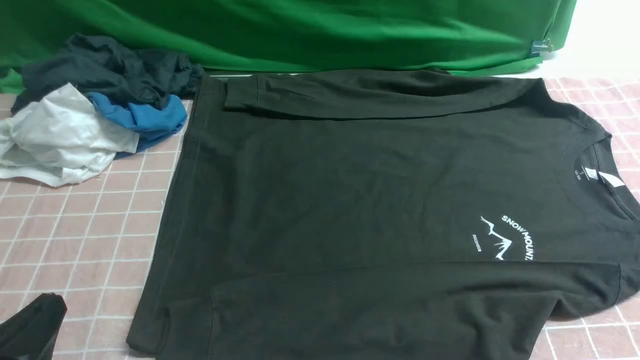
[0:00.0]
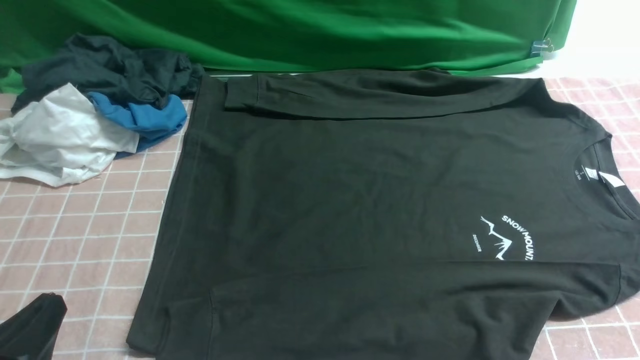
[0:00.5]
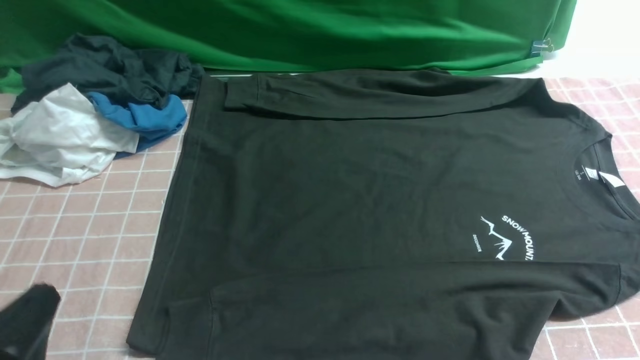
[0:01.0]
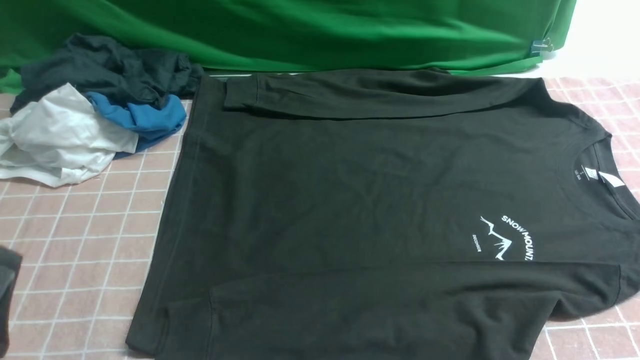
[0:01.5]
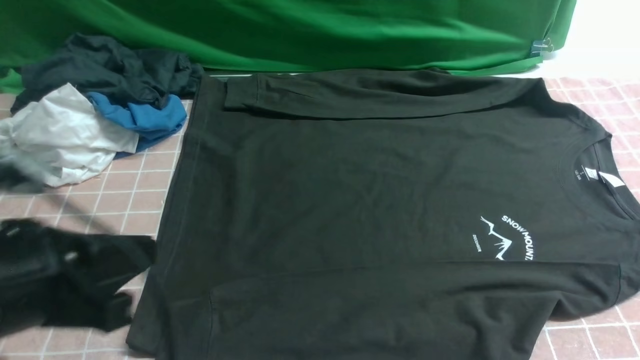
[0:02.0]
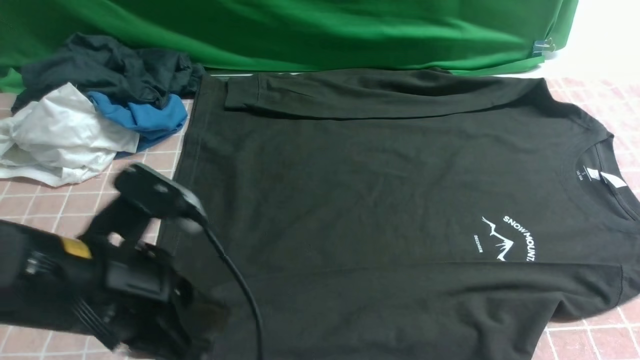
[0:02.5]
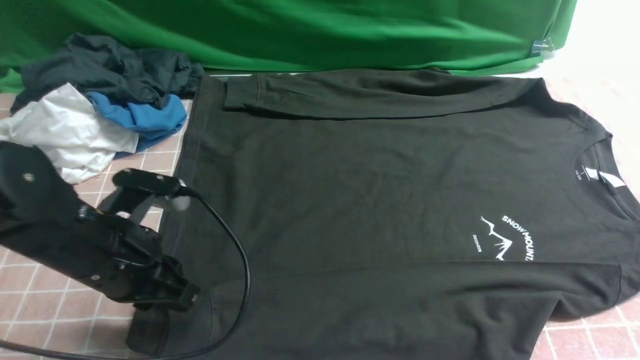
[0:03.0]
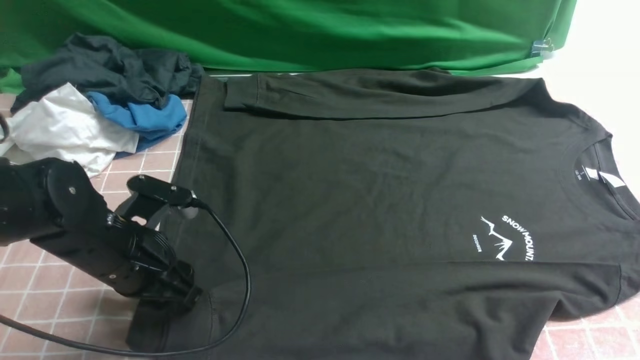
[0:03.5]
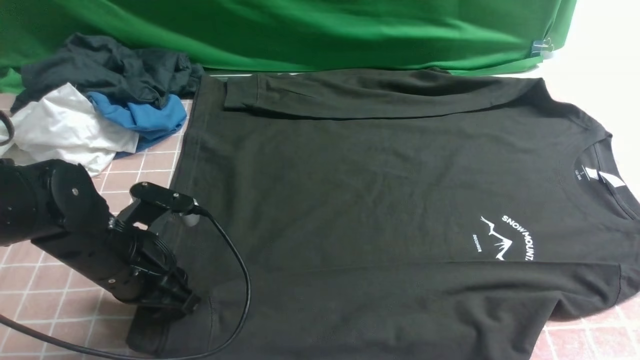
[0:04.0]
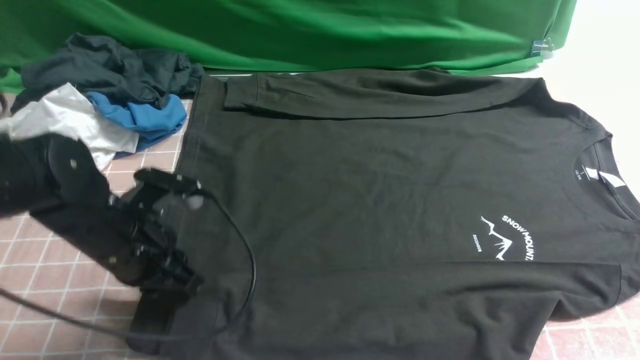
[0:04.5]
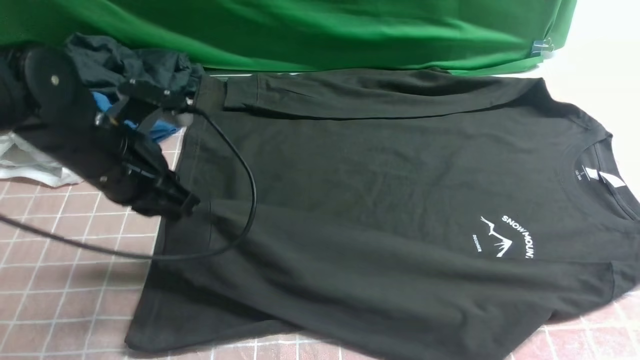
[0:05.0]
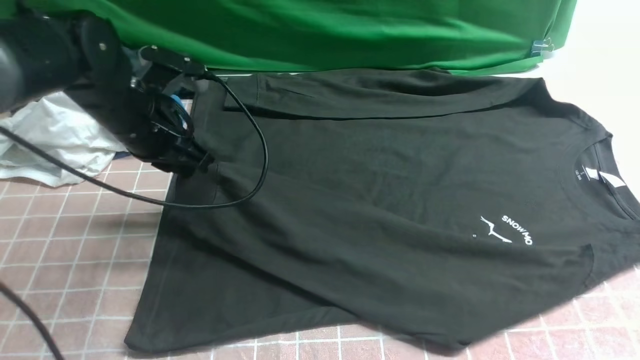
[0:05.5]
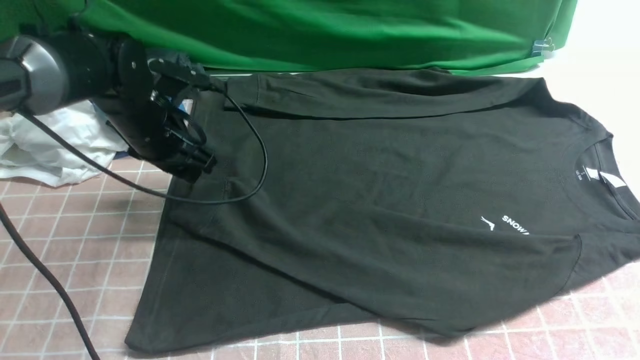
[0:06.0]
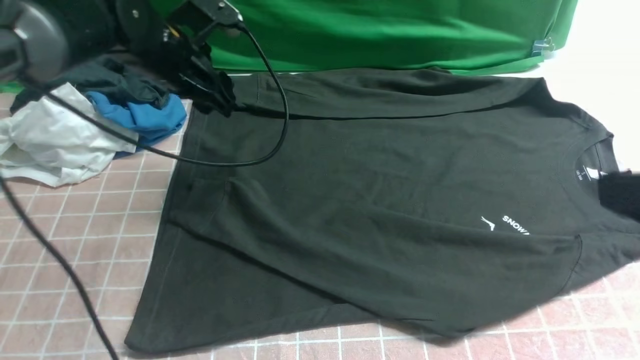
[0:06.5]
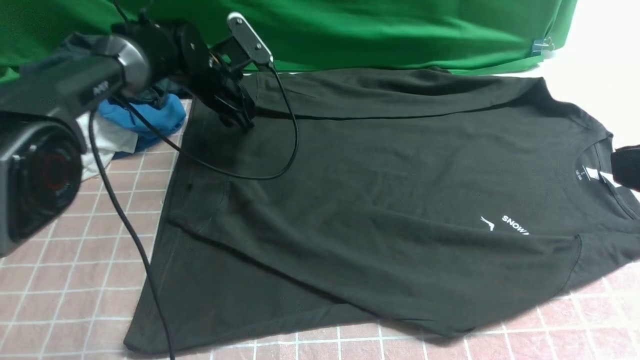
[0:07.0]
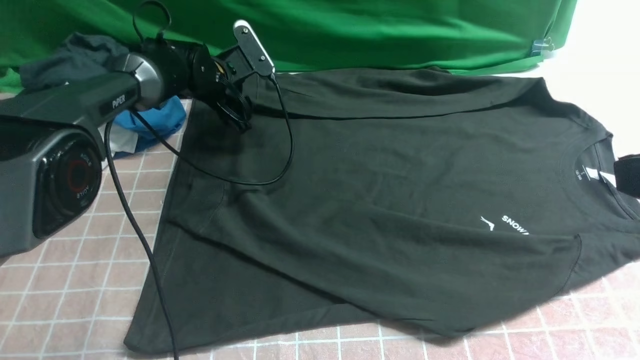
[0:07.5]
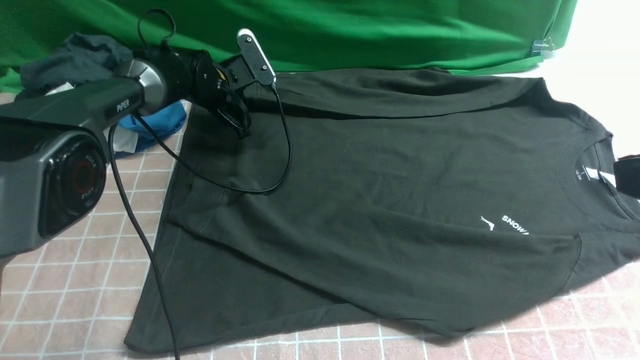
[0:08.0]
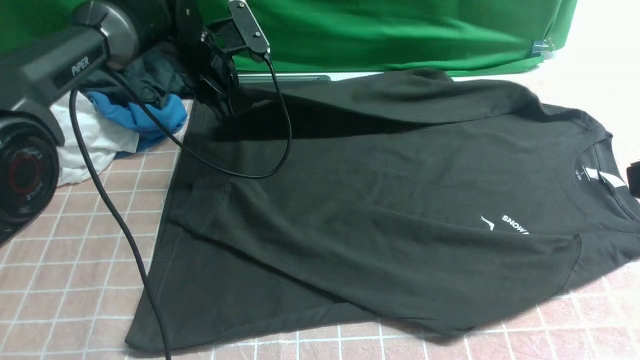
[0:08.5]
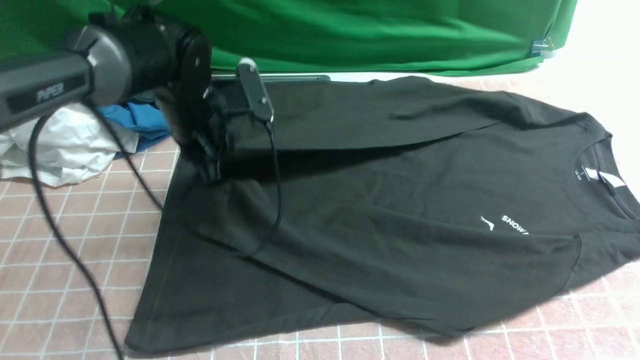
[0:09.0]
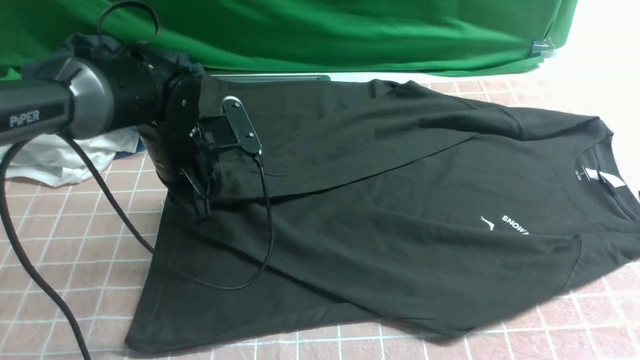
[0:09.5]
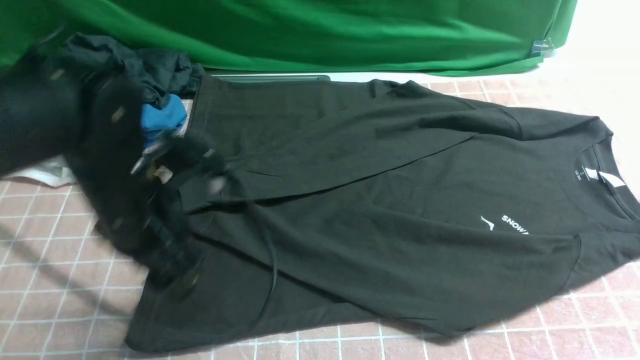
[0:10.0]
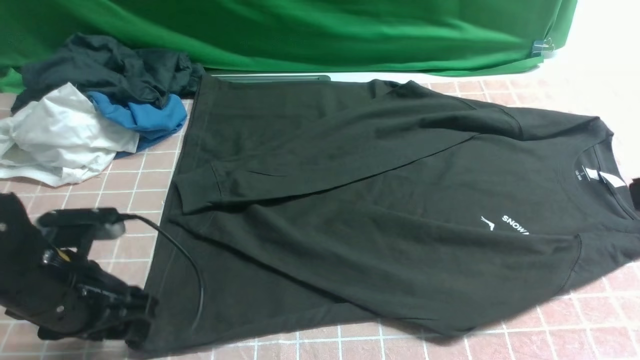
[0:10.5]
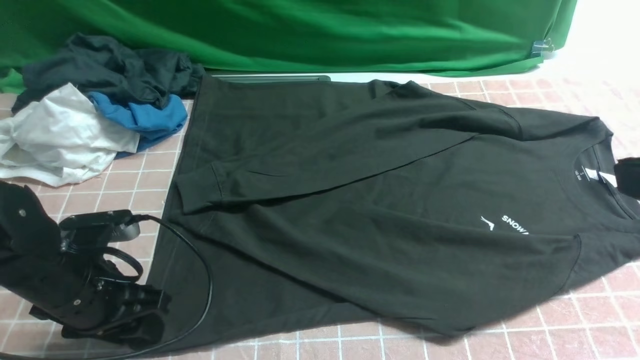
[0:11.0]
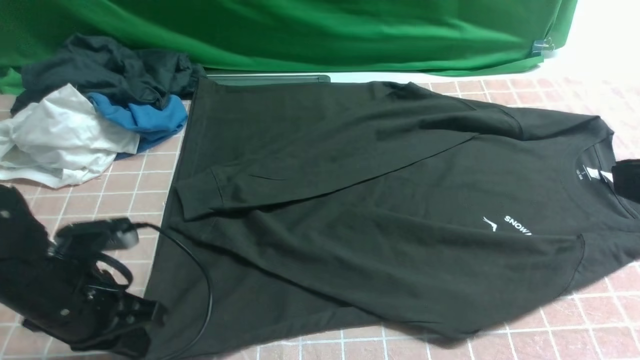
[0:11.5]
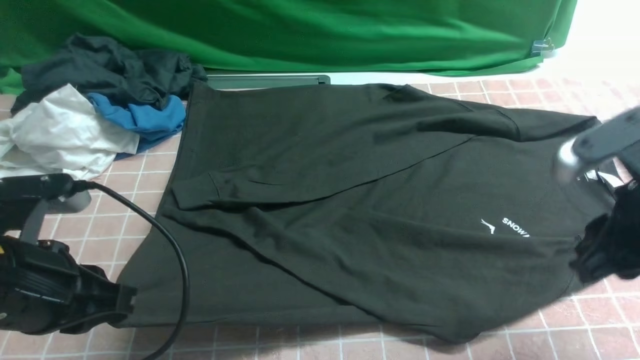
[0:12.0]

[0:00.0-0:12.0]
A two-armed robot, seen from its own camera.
Step, 0:00.0 to 0:04.5: use the left arm to clamp the cuff closest to it.
Step, 0:05.0 to 0:05.5: use the left arm to drag and place the cuff at the centered position on the left edge of the fabric.
Step, 0:06.0 to 0:08.0: use the left arm to clamp the cuff farthest from it.
Step, 0:08.5 to 0:09.5: use the left arm to drag and drop the cuff onto the cuff closest to the left arm.
0:00.0 to 0:02.0: The left gripper moves upward and forward, approximately 15 cm.
0:02.0 to 0:04.0: The left gripper travels downward and forward by about 20 cm; the right gripper goes some 15 cm upward.
0:04.0 to 0:06.0: The left gripper shifts some 15 cm forward, and opens its fingers.
0:06.0 to 0:08.0: The right gripper travels forward by approximately 5 cm; the left gripper moves forward and downward, roughly 15 cm, and closes up.
0:08.0 to 0:10.0: The right gripper closes its fingers, while the left gripper is displaced backward by approximately 25 cm, and opens.
0:10.0 to 0:12.0: The right gripper travels downward and forward by some 15 cm. The left gripper moves backward and to the left, some 10 cm, travels downward and back again, about 10 cm each way, and closes its fingers.

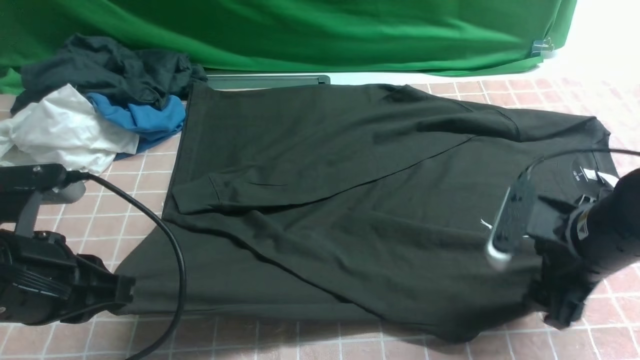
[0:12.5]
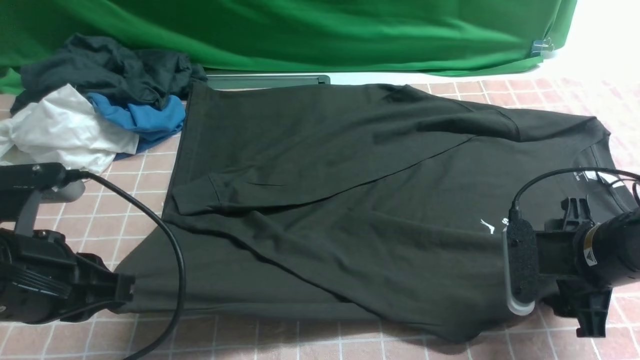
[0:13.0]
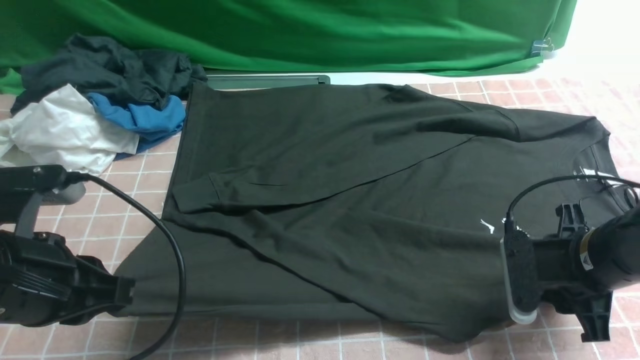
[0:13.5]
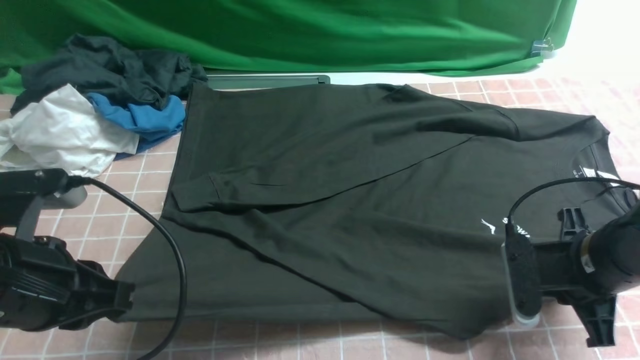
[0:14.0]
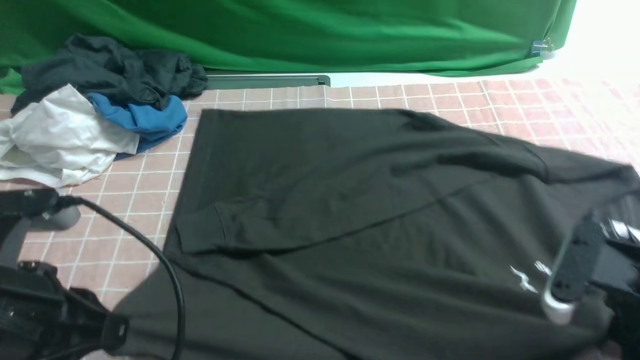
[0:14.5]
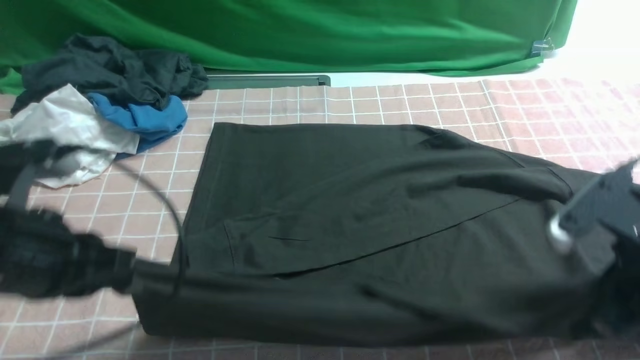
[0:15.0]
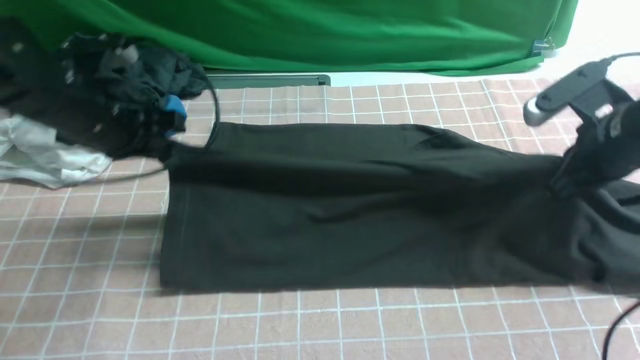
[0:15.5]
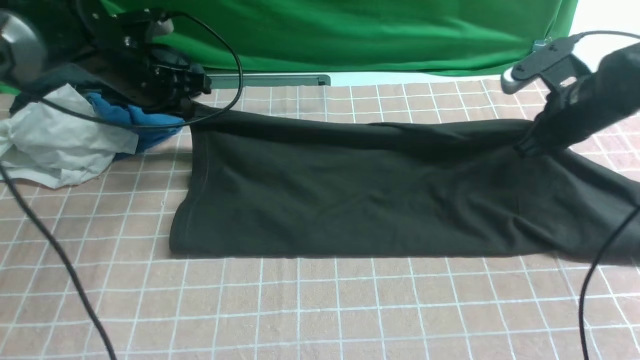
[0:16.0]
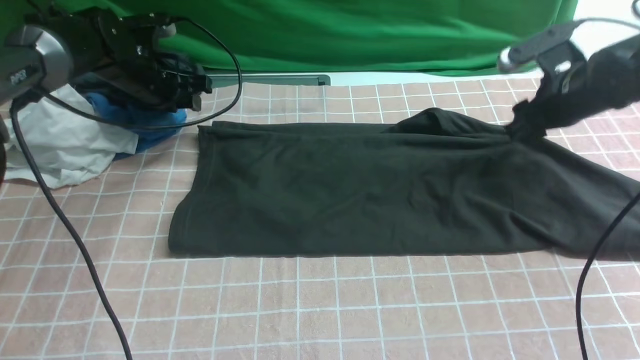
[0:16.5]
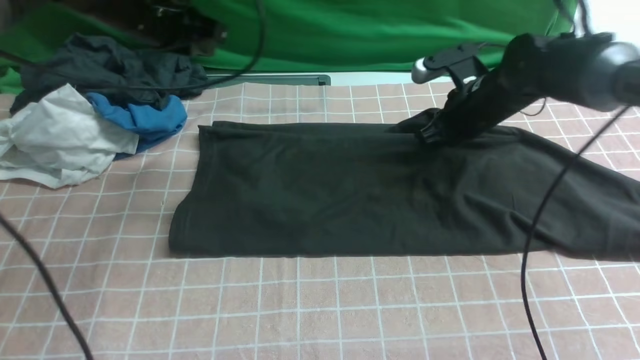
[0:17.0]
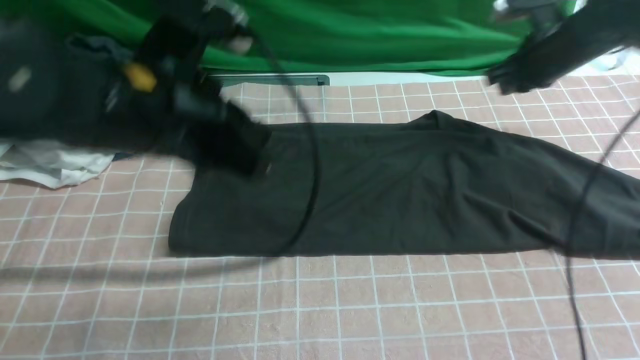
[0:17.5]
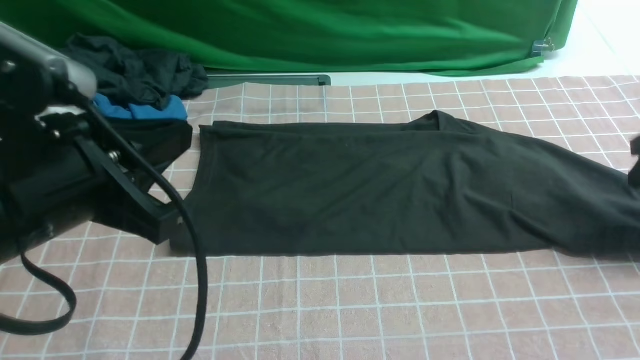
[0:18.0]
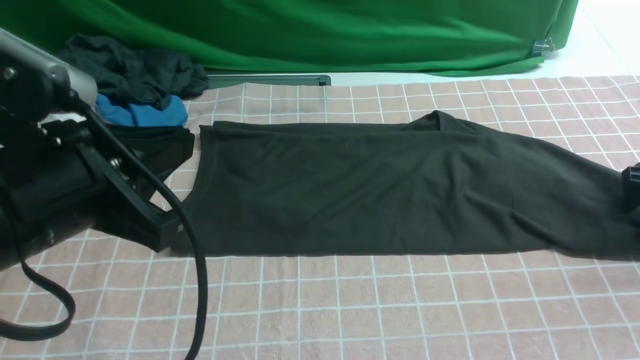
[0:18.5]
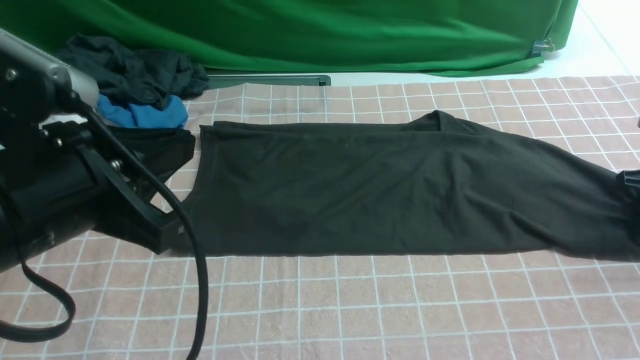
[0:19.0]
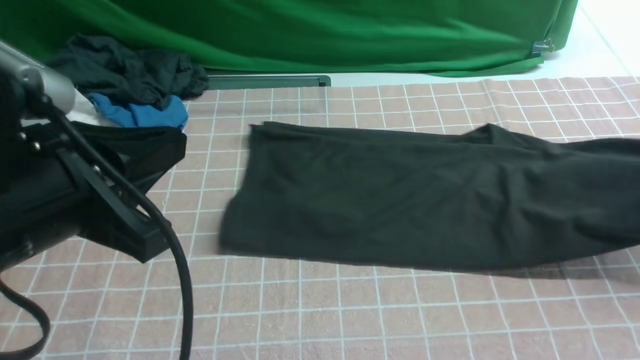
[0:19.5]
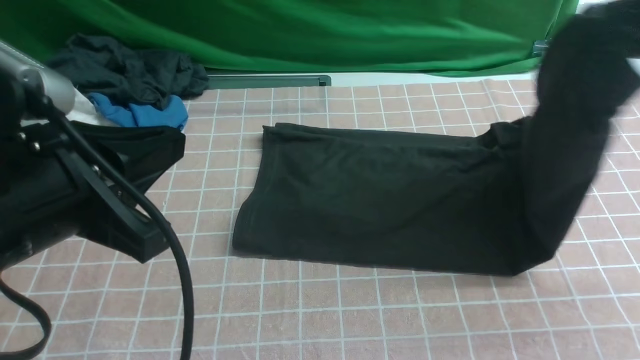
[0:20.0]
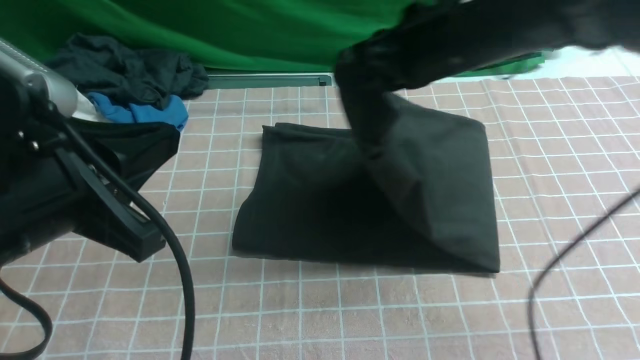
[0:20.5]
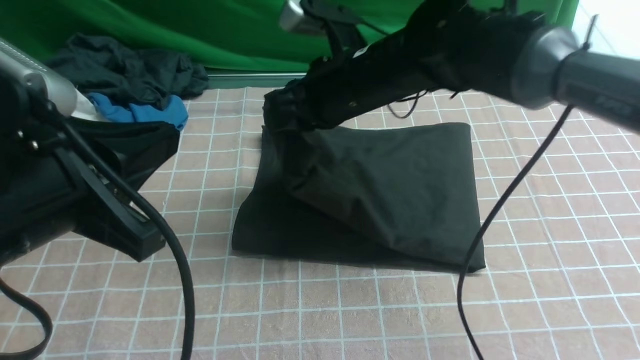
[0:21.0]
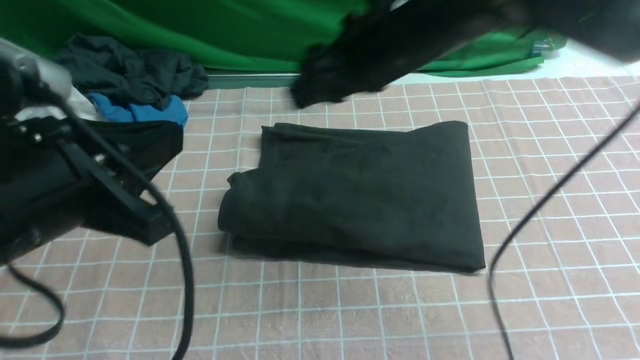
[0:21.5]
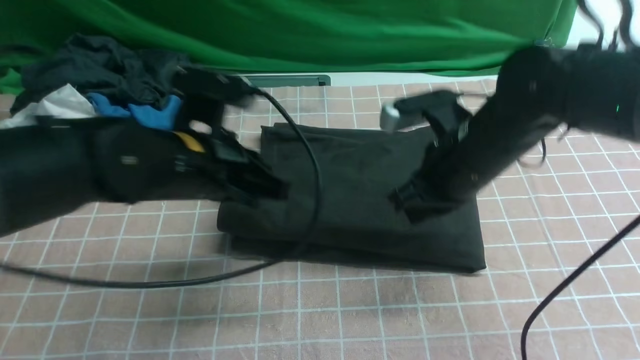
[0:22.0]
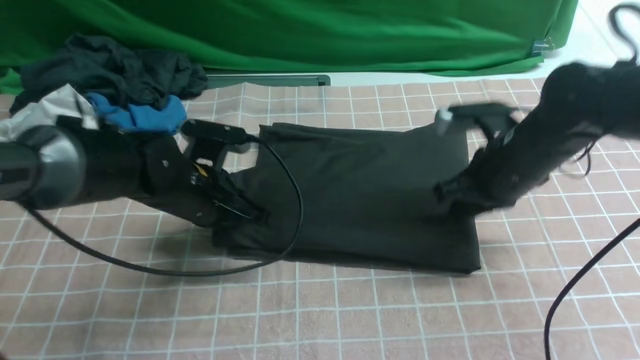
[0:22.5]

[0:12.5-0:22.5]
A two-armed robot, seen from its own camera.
Step, 0:14.5 to 0:16.5: use both arms to drag the lower edge of the fabric forward and fold it over the upper edge.
Step, 0:17.0 to 0:19.0: use the right arm to clamp the right edge of the fabric.
Step, 0:19.5 to 0:21.0: use the right arm to drag the right edge of the fabric to the left and folds it over the left edge.
0:12.5 to 0:14.5: The right gripper goes about 5 cm backward, and closes up.
0:14.5 to 0:16.5: The two grippers go about 30 cm forward. The left gripper opens up, while the right gripper opens its fingers.
0:16.5 to 0:18.5: The right gripper is displaced to the right and backward by some 20 cm, and opens its fingers; the left gripper shifts approximately 35 cm backward, and closes up.
0:18.5 to 0:20.5: The right gripper heads to the left and upward, covering some 35 cm, and closes its fingers.
0:20.5 to 0:22.5: The right gripper shifts approximately 15 cm downward and to the right. Meanwhile the left gripper moves forward and downward, approximately 25 cm.
